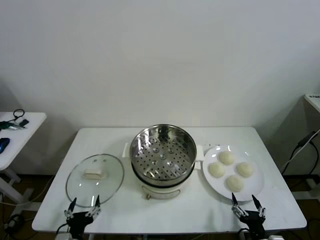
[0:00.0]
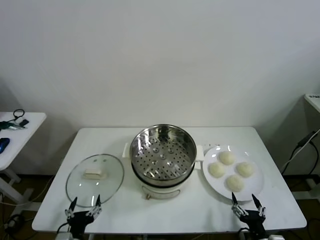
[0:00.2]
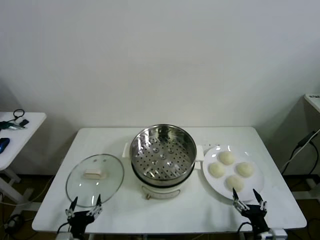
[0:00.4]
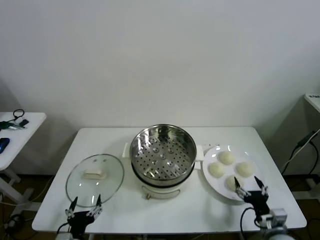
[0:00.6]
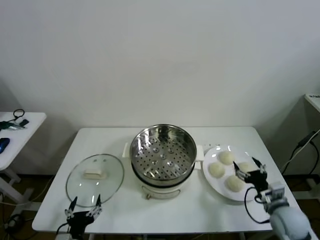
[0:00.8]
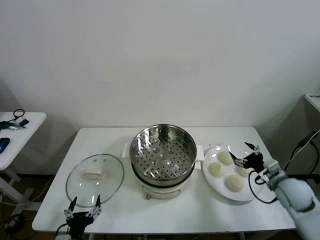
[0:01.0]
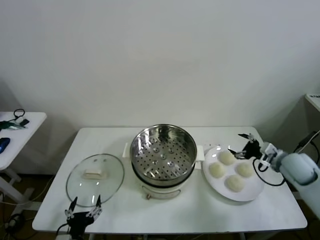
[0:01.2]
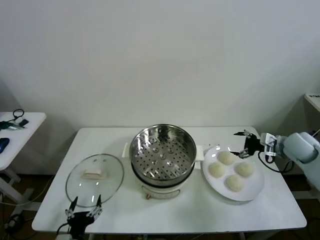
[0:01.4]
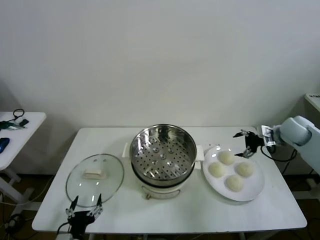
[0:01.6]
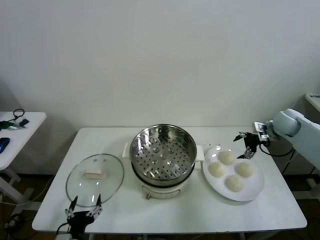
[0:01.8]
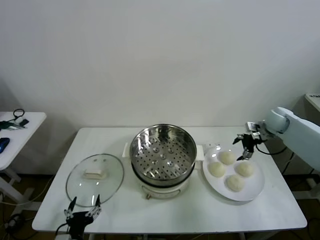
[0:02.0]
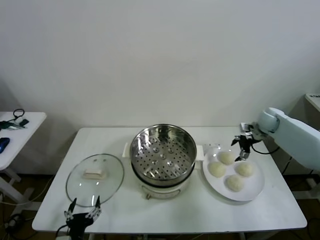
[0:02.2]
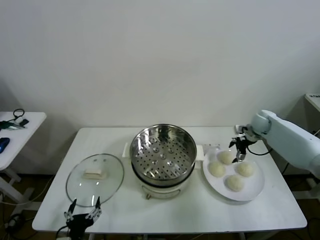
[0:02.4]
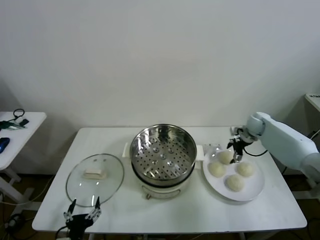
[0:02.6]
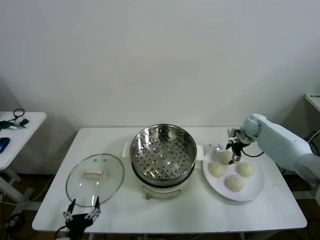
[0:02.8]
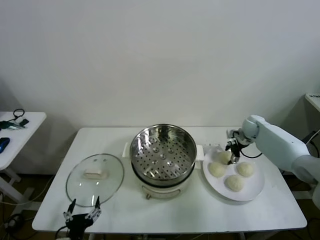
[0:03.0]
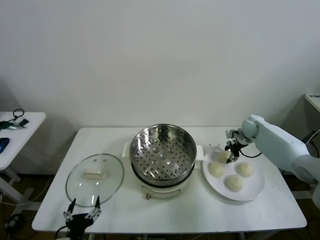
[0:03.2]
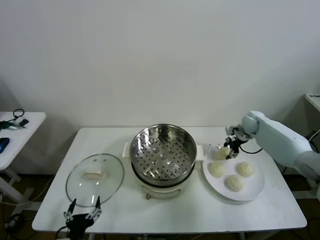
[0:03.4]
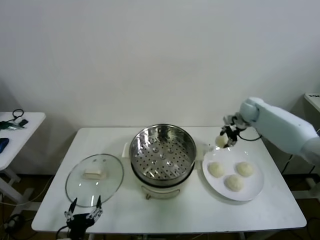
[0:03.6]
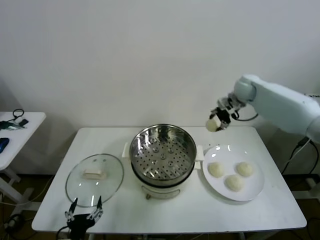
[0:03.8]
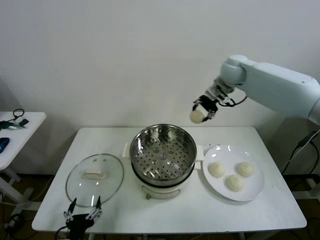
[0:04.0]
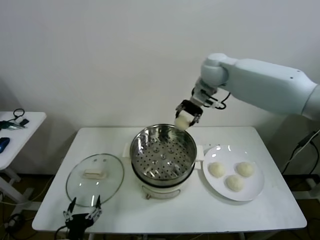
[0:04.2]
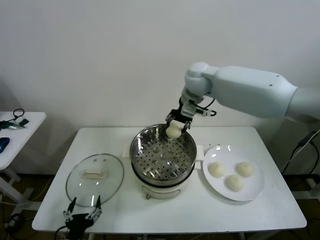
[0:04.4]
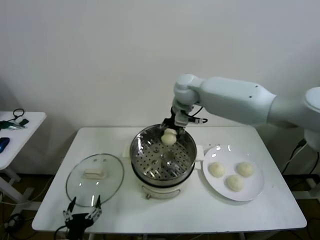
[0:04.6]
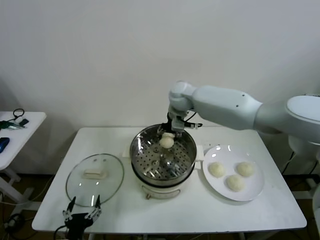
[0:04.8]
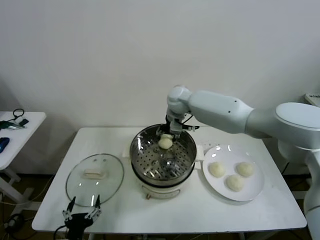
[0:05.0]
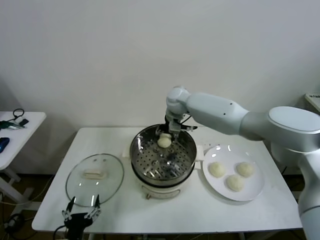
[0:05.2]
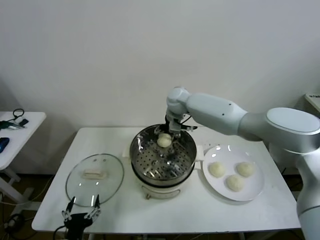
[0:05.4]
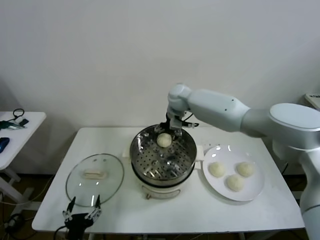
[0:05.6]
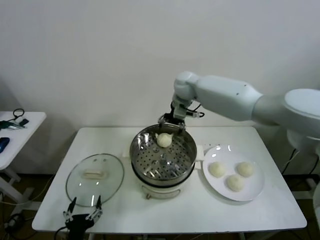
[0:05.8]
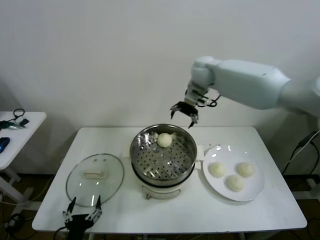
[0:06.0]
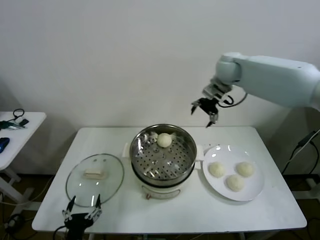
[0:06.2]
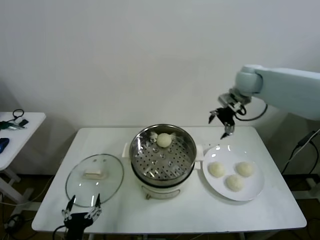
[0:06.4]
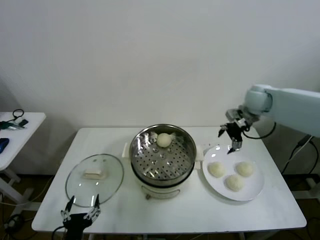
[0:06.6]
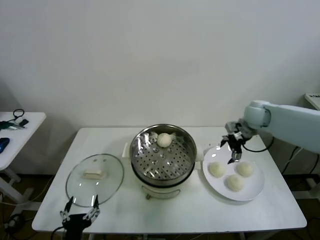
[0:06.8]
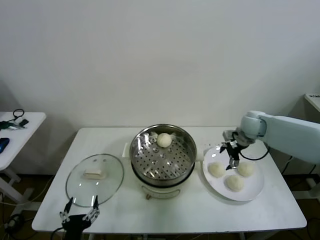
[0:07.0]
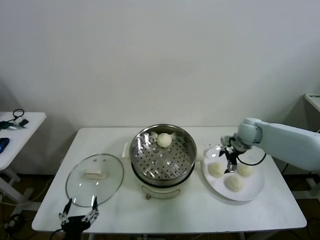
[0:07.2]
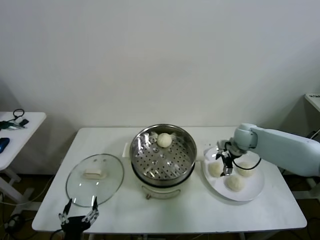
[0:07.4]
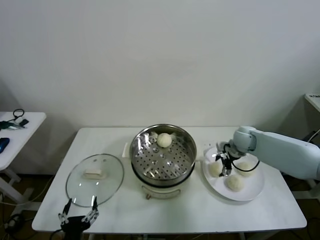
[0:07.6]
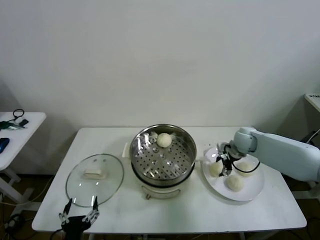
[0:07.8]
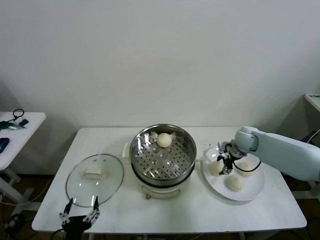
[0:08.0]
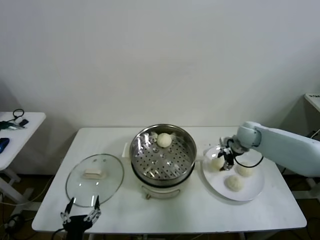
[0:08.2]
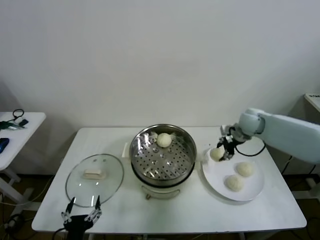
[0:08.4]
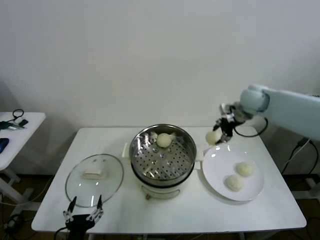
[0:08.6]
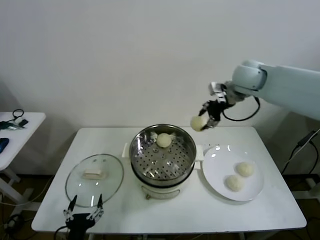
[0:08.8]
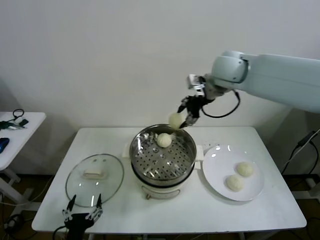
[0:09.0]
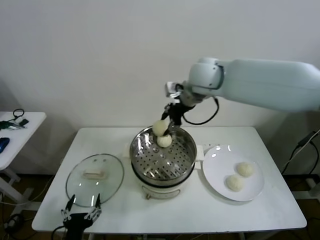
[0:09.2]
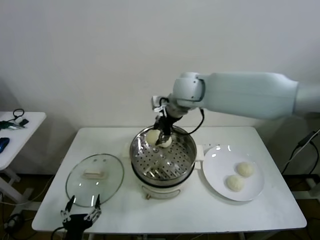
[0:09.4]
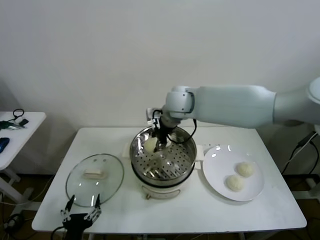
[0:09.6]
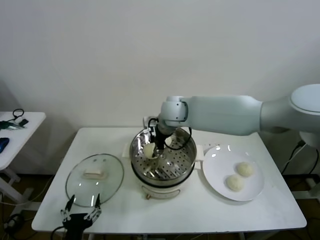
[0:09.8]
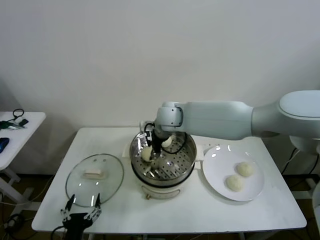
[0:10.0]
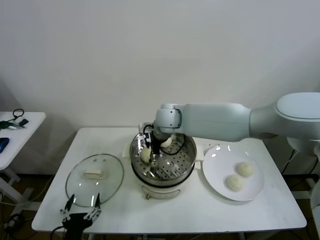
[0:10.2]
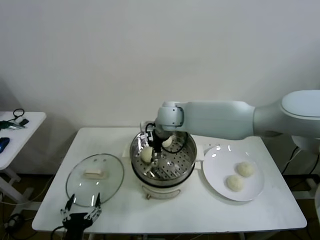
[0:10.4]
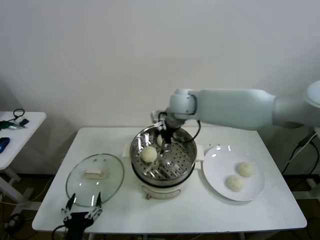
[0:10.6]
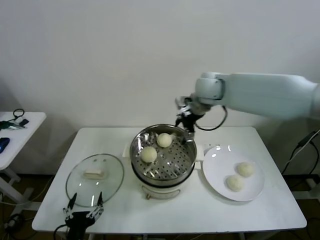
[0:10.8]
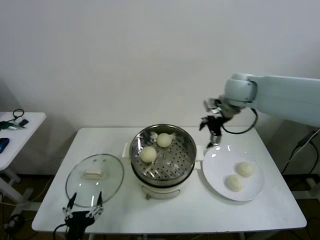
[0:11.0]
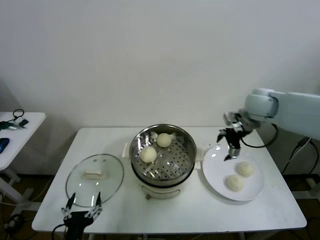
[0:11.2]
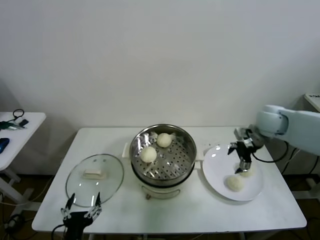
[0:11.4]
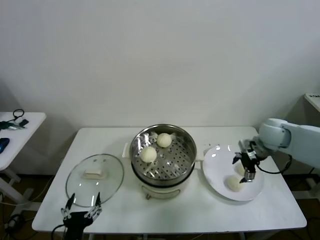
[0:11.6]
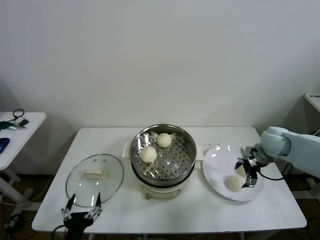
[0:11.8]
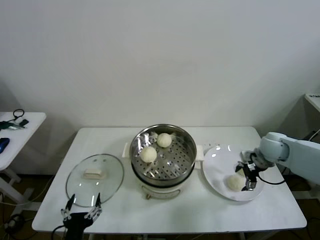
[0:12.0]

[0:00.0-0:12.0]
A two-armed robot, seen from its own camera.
Task of the whole recording: take steamed baozi put them in steamer then cover it.
Step, 0:00.0 to 0:03.2: Grasp the baozi in the plate with right gripper.
Step, 0:03.4 to 0:05.6: Place the baozi on the steamer with right gripper.
Step, 0:05.8 to 0:08.0: Grasp the baozi in the plate with right gripper.
Step, 0:08.2 to 0:10.4: Place the baozi on the steamer with right gripper.
0:01.6 to 0:03.0: The right gripper is displaced downward, forward and to the left by roughly 15 cm, and closes.
0:03.0 to 0:04.4: The right gripper shifts roughly 35 cm to the left and upward.
0:04.4 to 0:06.0: The right gripper heads to the right, covering about 10 cm, moves roughly 10 cm downward and comes back, and opens up.
0:06.0 to 0:07.6: The right gripper is displaced downward and to the right by about 30 cm, and closes its fingers.
0:07.6 to 0:09.0: The right gripper shifts approximately 35 cm upward and to the left, and closes.
0:09.0 to 0:10.4: The right gripper moves downward and to the left, some 20 cm, and opens up.
0:10.4 to 0:12.0: The right gripper moves to the right, approximately 35 cm.

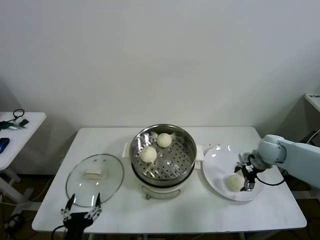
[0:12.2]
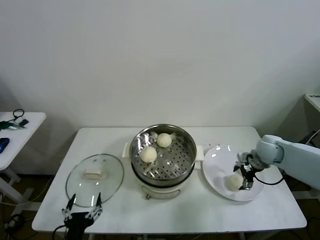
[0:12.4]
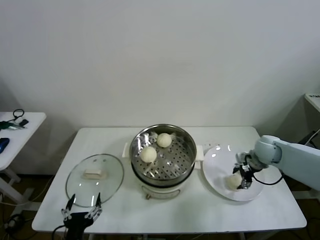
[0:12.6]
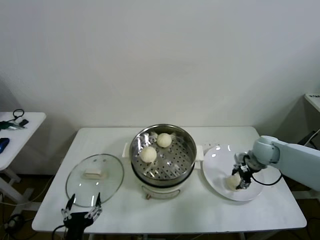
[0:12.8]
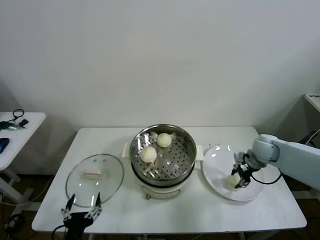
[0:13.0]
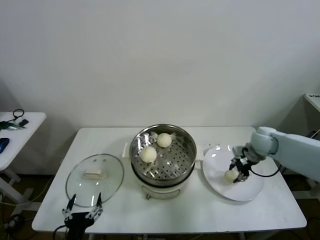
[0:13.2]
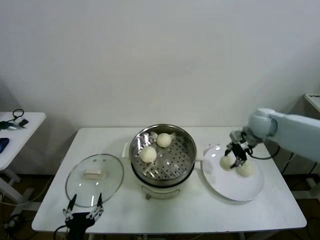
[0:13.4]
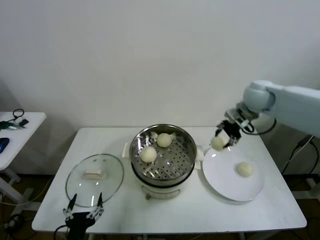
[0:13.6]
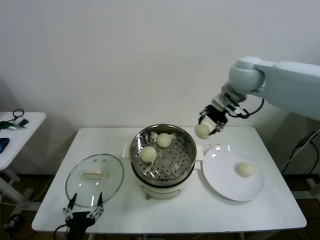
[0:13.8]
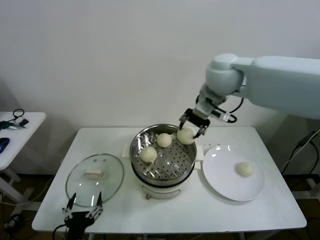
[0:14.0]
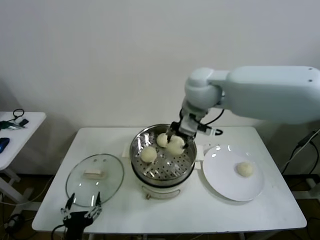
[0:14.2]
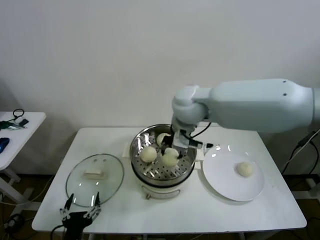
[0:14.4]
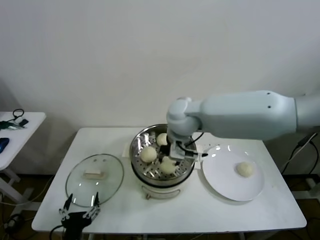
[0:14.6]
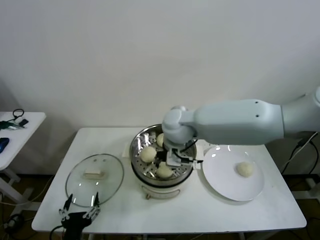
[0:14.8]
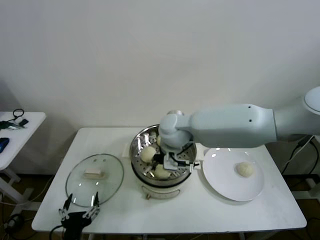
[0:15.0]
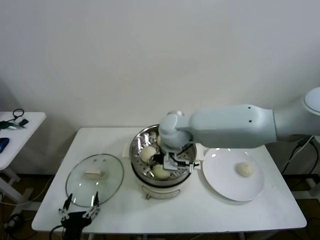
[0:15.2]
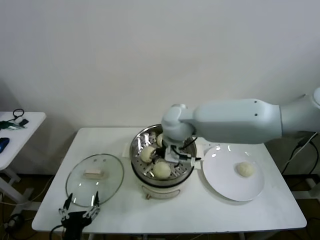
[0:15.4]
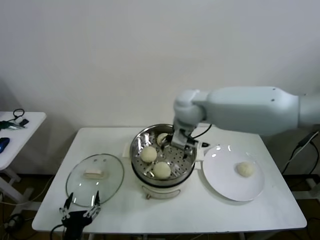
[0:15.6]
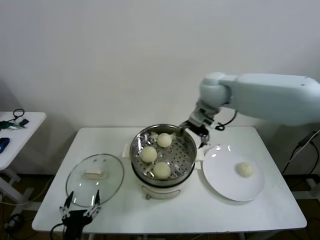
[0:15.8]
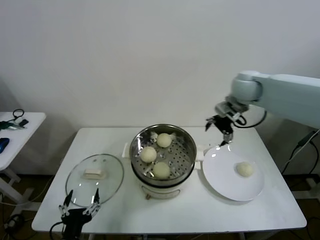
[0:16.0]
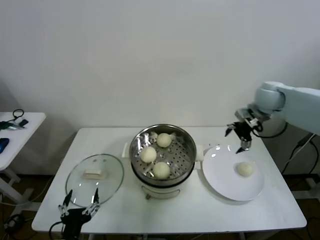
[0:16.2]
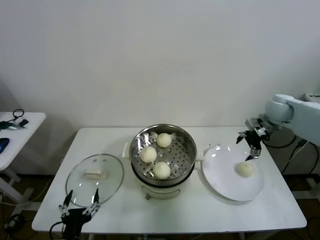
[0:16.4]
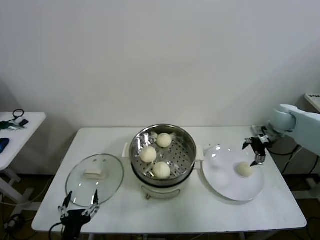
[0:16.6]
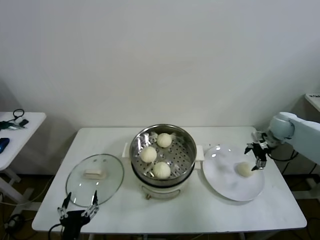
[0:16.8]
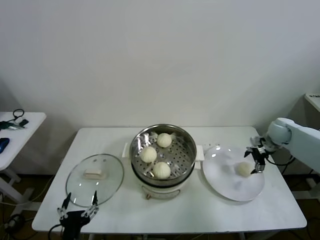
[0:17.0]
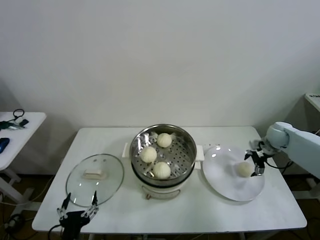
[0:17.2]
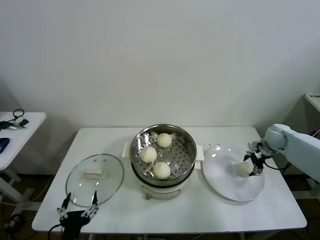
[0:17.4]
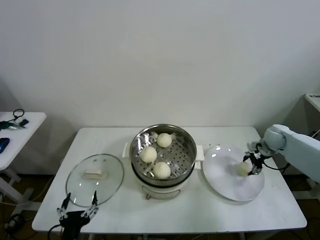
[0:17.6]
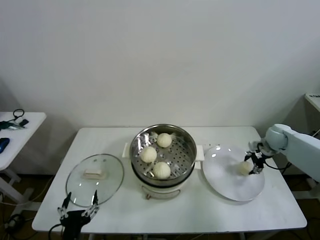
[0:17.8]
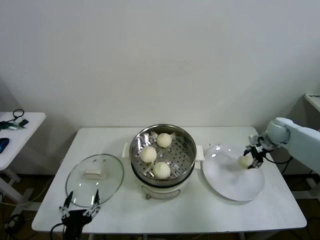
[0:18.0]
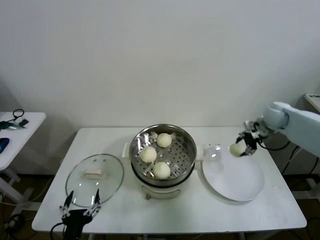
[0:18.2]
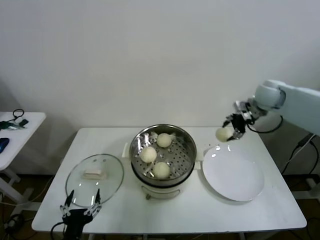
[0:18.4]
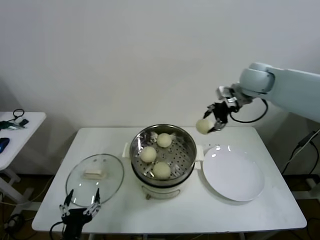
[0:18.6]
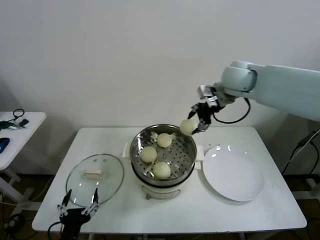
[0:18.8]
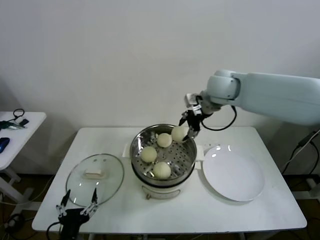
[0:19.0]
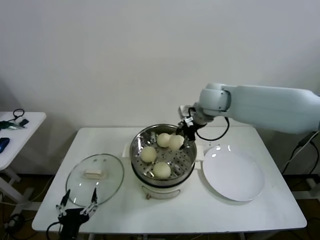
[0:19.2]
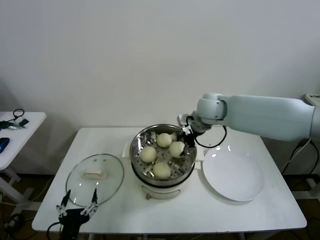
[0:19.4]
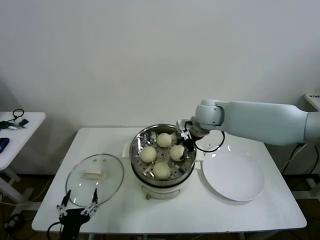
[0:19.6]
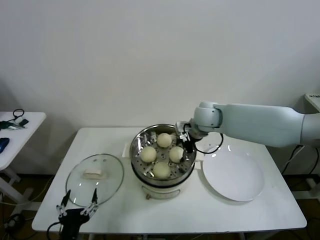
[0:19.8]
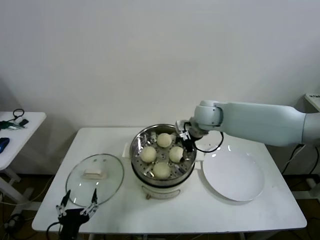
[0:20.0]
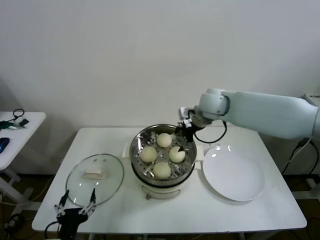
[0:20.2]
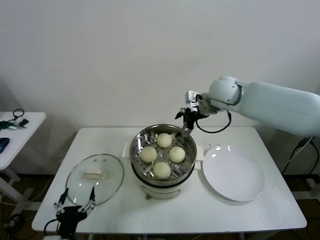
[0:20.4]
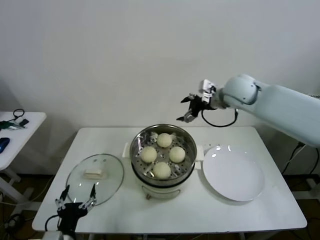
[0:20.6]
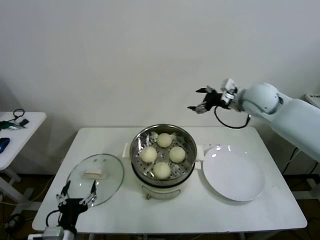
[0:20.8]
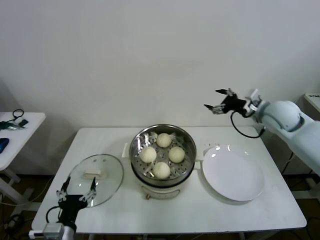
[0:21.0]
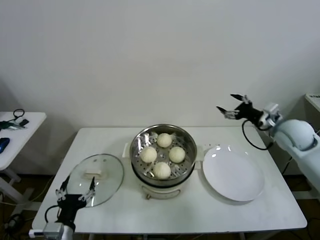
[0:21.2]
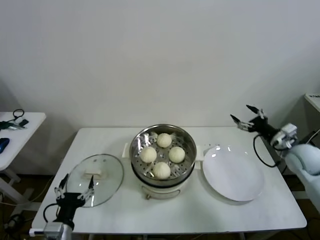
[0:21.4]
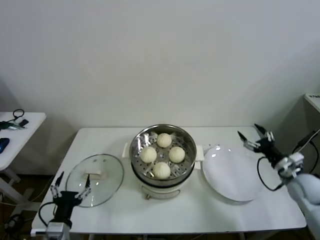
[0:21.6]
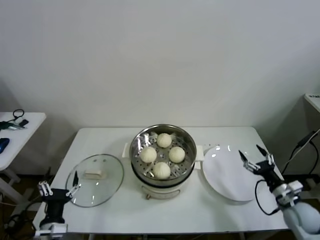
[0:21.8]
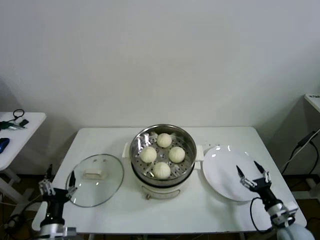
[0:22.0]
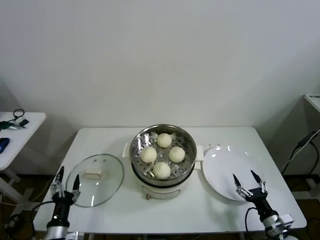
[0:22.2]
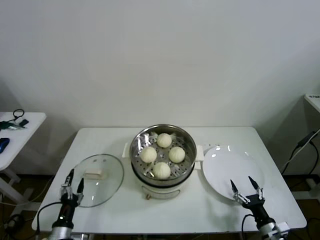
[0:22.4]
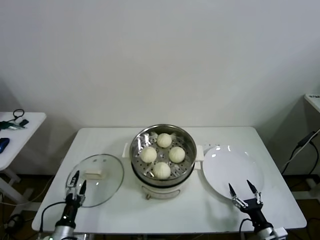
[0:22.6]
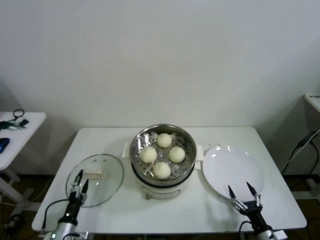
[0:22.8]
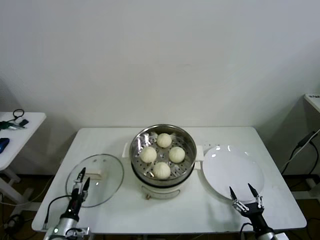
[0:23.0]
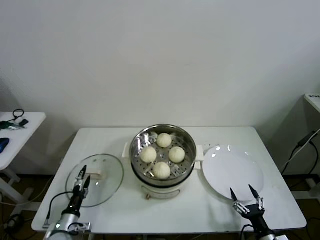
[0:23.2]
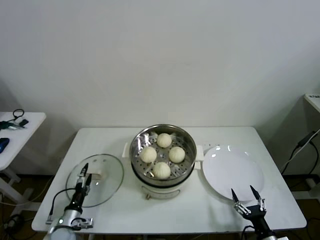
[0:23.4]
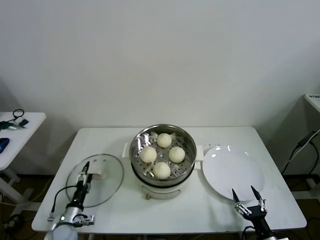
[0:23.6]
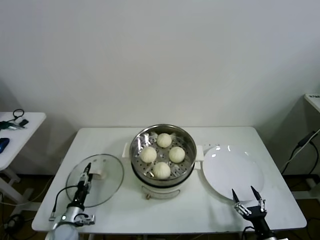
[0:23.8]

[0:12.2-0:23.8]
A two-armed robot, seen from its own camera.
Task of the whole recording: take steamed baozi put them in steamer then cover it.
Step, 0:13.2 to 0:15.2: Place the baozi on the steamer with right gripper.
Step, 0:15.4 to 0:17.6: Grasp the baozi in the plate with right gripper.
Step, 0:18.0 to 0:20.0: Place the baozi on the steamer with right gripper.
0:12.2 to 0:13.6: The right gripper is displaced upward and to the left by some 25 cm, and closes up.
0:13.6 to 0:15.0: The right gripper travels to the left by approximately 25 cm.
0:15.0 to 0:16.6: The right gripper is displaced to the right by some 40 cm, and opens up.
0:16.6 to 0:18.0: The right gripper closes its fingers.
0:18.0 to 0:19.4: The right gripper goes roughly 30 cm to the left.
0:19.4 to 0:21.0: The right gripper shifts about 20 cm to the right, and opens its fingers.
0:21.0 to 0:22.4: The left gripper goes about 10 cm downward and to the left; the right gripper is displaced downward and backward by about 50 cm.
0:22.4 to 0:23.8: The left gripper travels forward and downward by roughly 10 cm.
